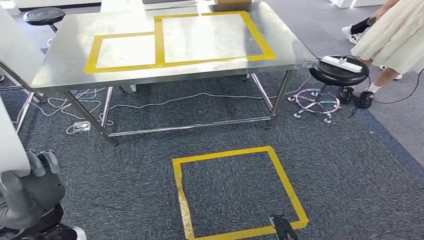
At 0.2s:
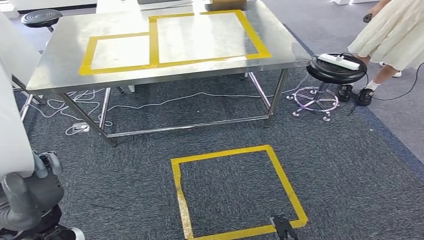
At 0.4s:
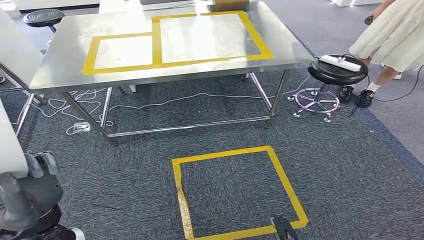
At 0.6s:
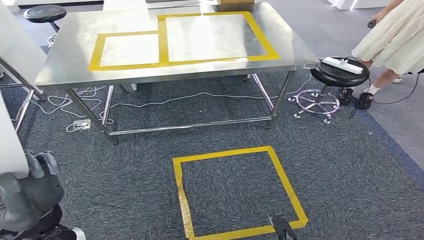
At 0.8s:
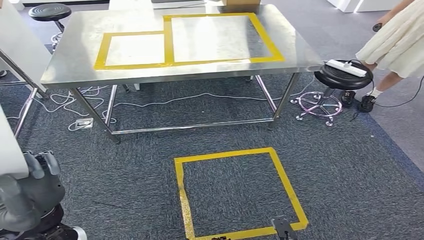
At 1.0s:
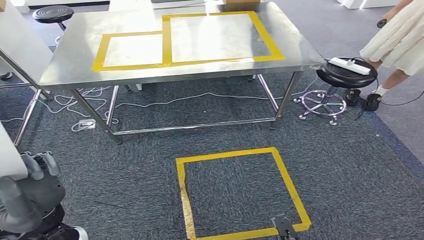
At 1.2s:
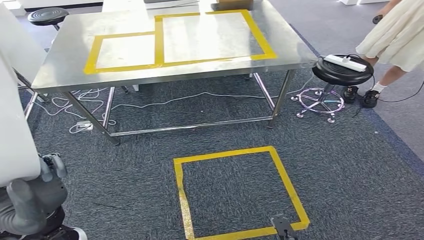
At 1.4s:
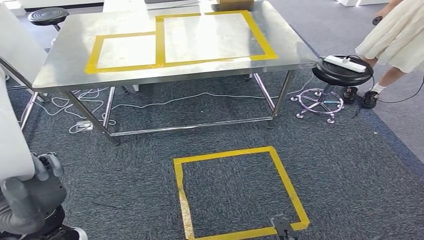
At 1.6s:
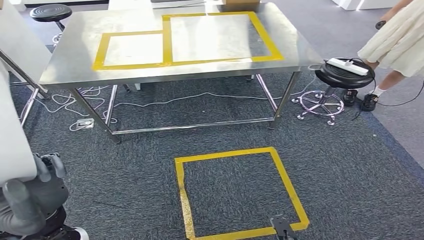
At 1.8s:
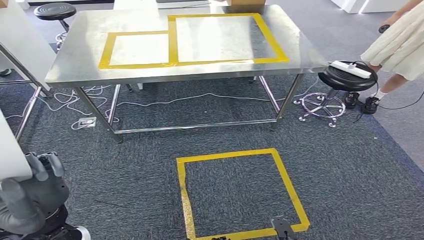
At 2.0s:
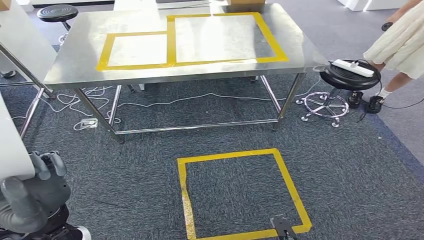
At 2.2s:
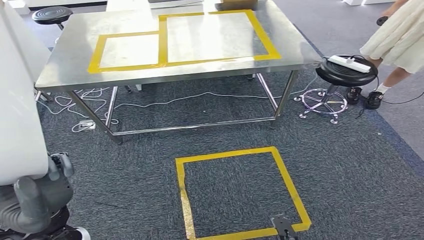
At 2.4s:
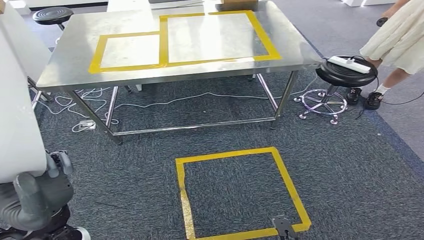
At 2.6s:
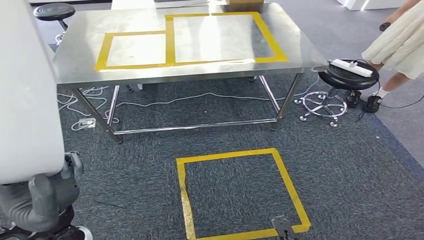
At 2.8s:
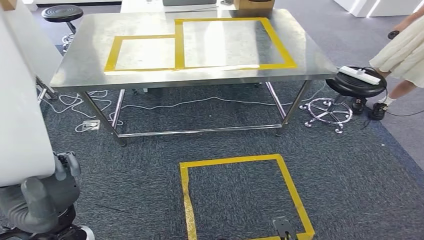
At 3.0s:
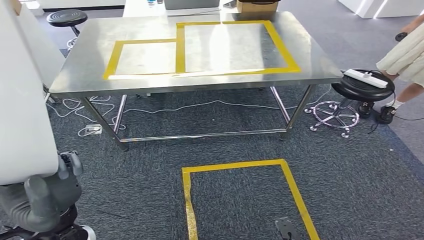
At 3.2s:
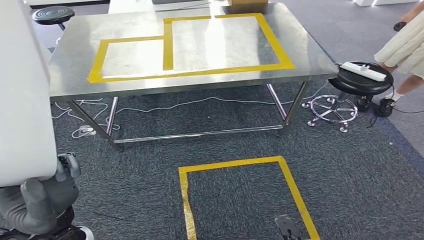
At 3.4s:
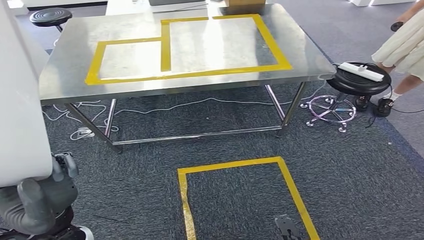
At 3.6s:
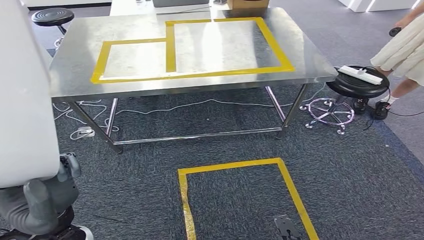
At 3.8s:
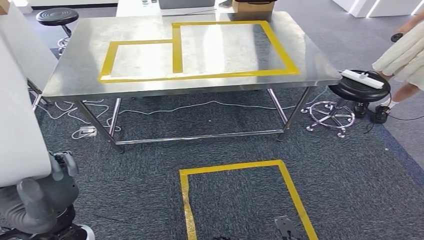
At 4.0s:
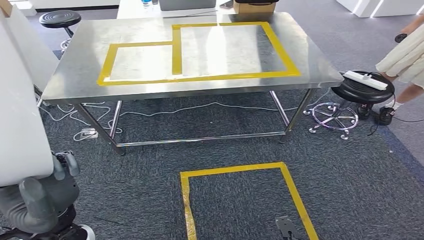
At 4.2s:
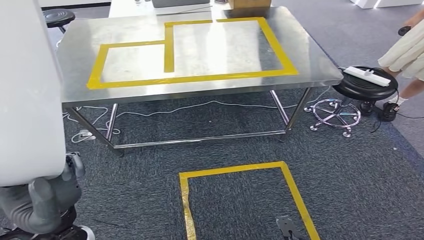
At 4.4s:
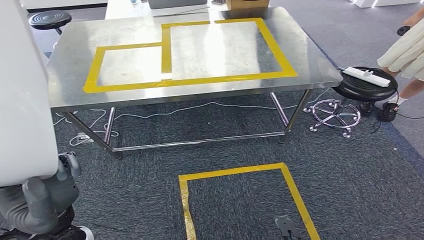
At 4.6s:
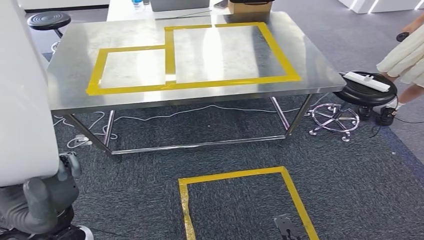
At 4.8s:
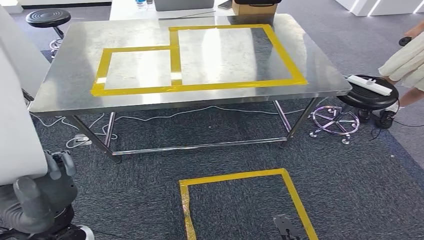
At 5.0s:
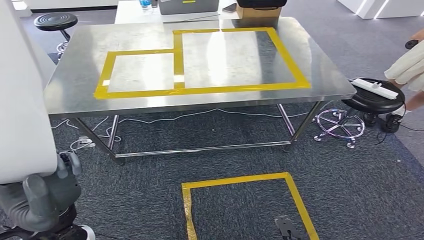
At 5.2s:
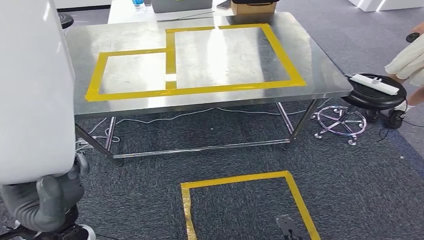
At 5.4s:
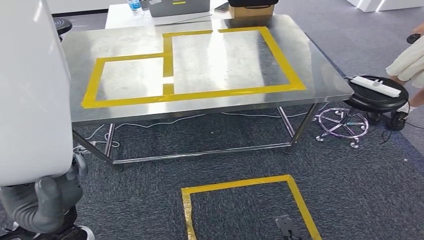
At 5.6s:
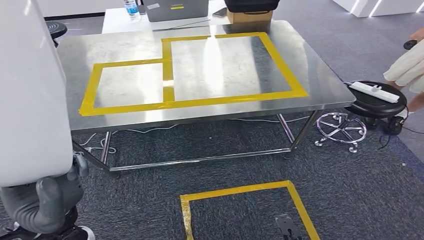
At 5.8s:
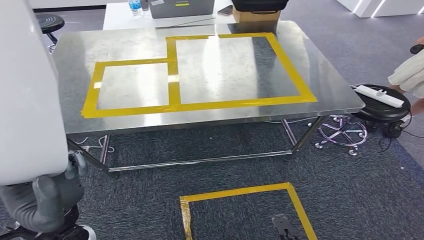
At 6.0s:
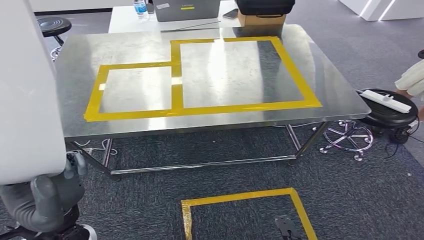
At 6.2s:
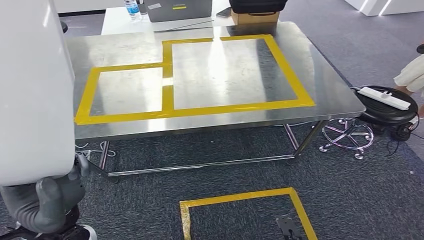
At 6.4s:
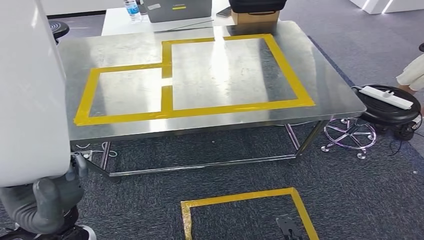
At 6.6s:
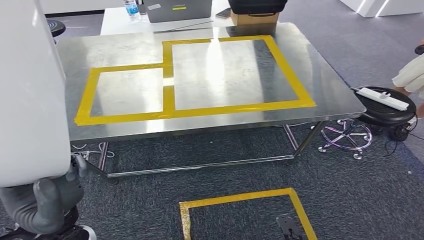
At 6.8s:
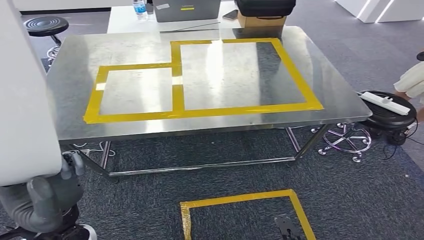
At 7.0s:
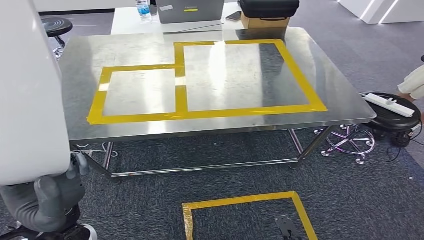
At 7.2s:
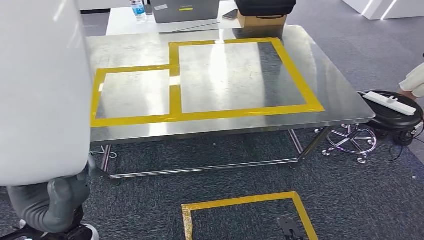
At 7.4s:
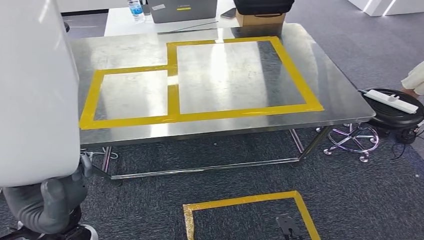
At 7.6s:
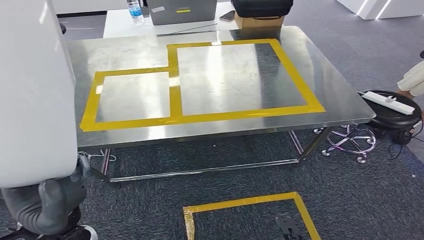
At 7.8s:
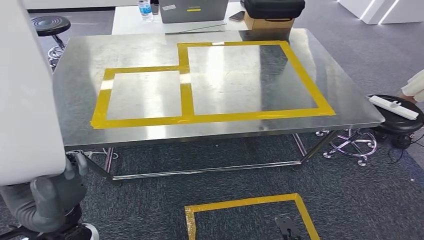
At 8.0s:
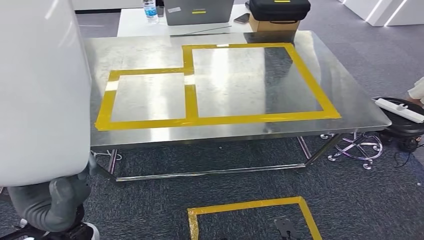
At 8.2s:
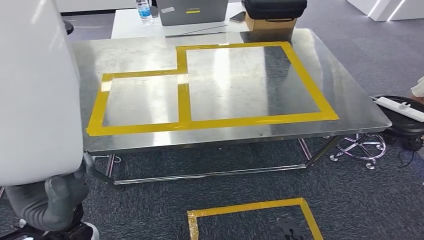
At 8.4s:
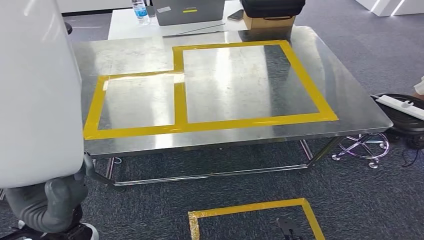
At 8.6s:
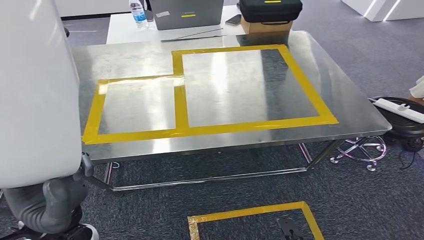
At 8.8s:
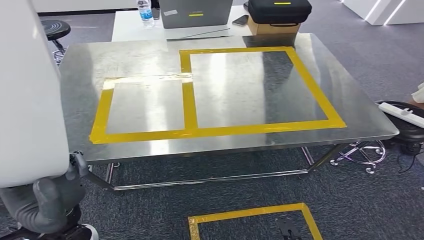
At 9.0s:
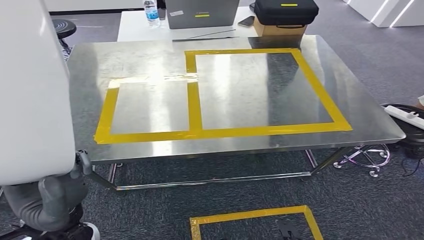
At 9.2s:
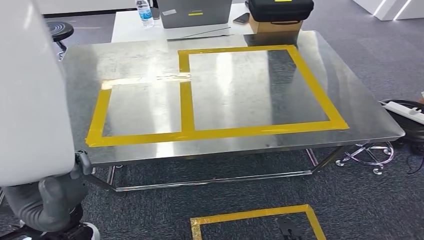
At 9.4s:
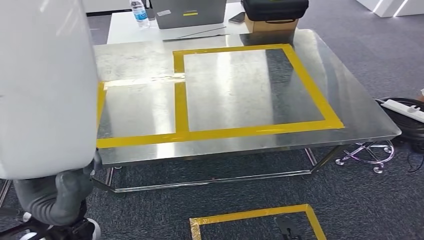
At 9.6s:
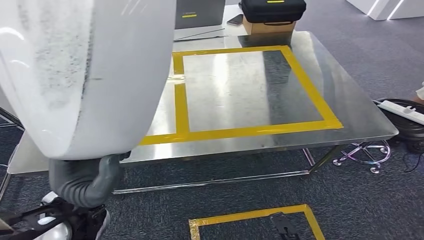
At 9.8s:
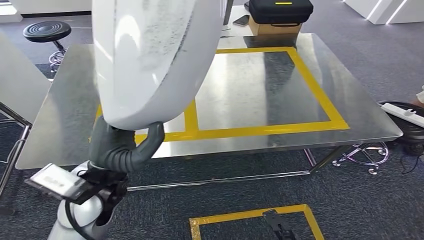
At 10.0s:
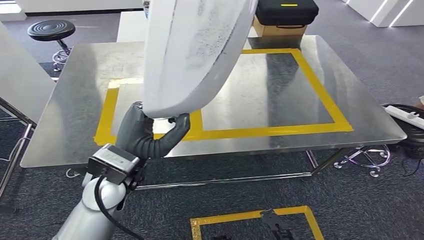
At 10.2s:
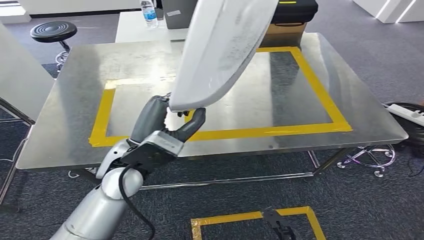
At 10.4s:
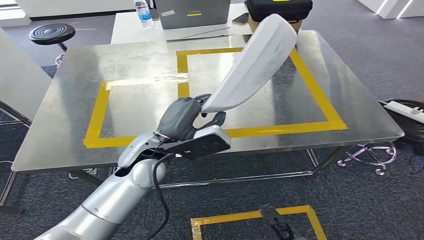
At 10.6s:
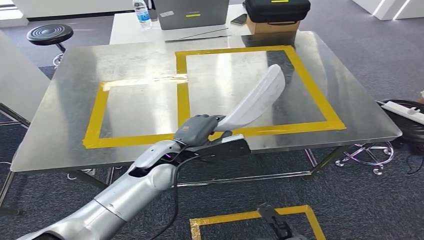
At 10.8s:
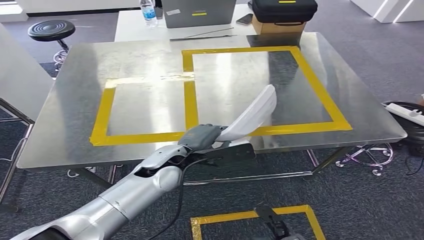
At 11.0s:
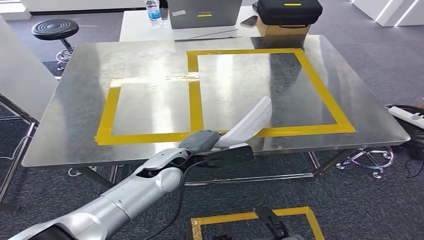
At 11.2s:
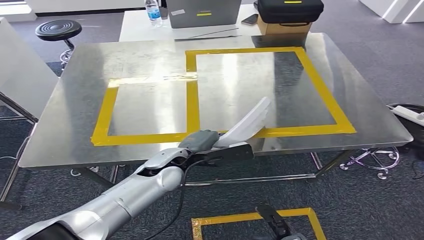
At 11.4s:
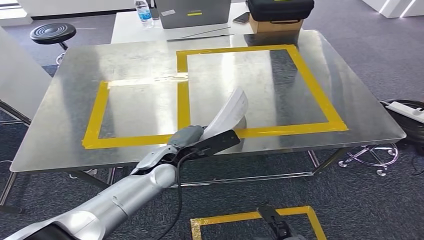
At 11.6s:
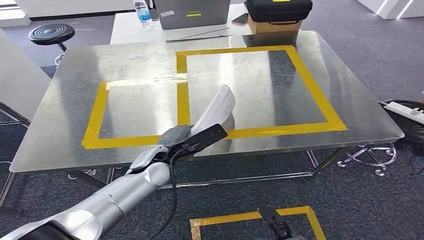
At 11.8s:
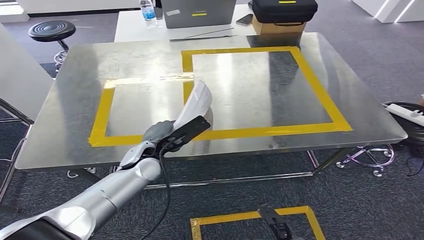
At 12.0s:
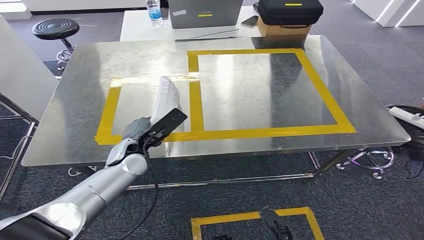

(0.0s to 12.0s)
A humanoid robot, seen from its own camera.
Step, 0.0s - 7.8s: Move the small component to the workbench.
0.0s - 1.6s: The hands move only a little.

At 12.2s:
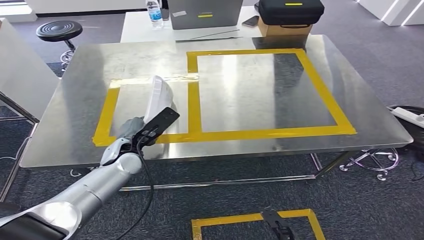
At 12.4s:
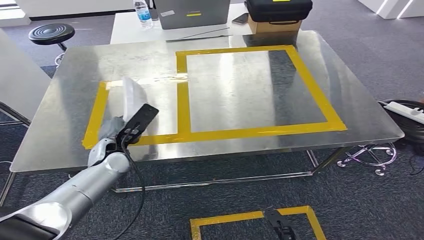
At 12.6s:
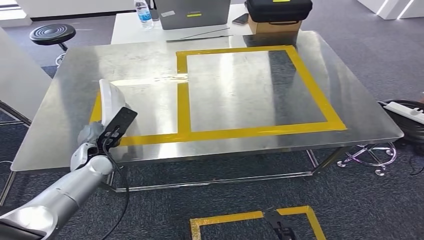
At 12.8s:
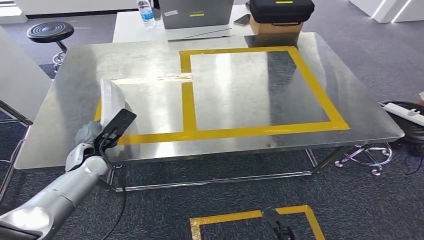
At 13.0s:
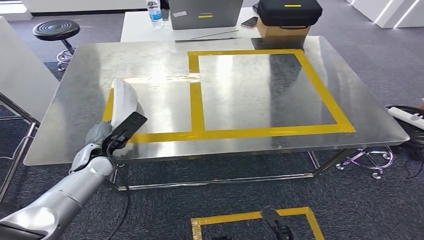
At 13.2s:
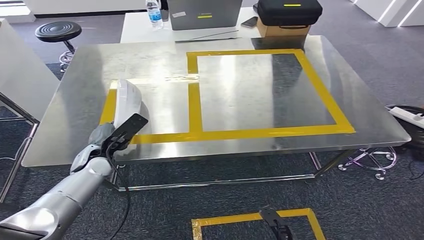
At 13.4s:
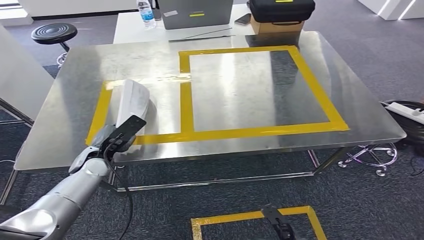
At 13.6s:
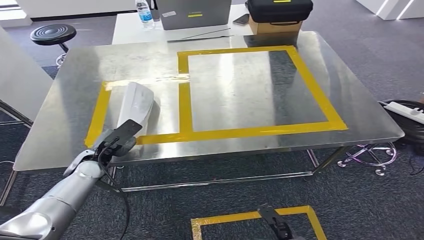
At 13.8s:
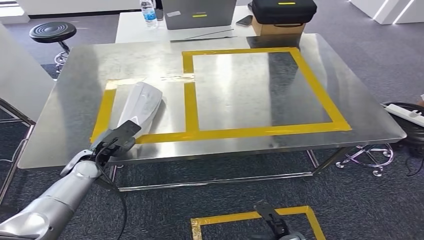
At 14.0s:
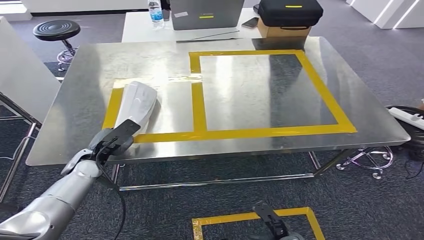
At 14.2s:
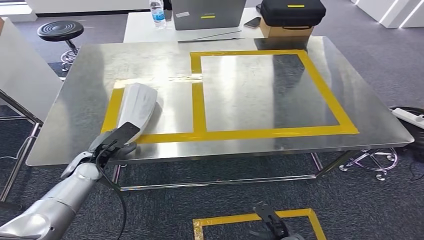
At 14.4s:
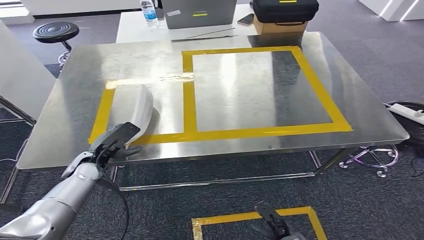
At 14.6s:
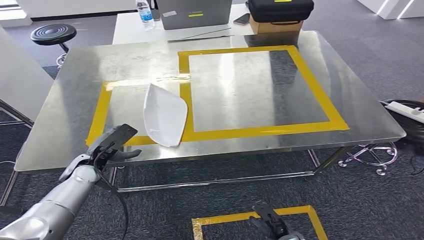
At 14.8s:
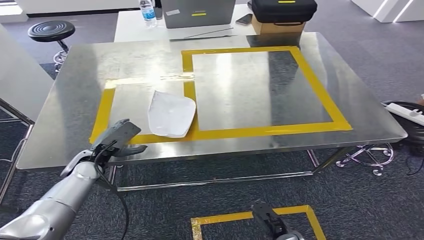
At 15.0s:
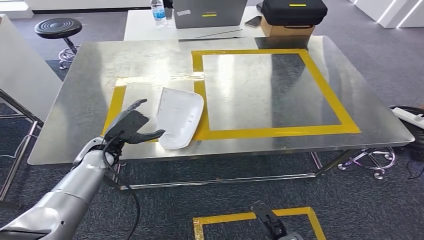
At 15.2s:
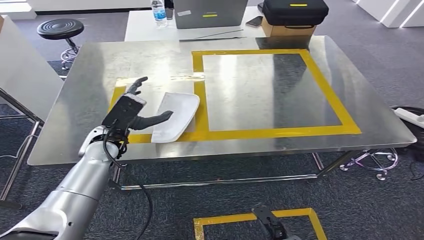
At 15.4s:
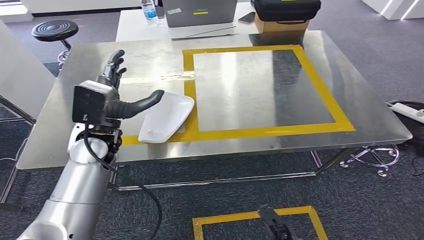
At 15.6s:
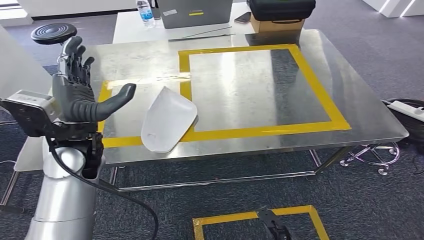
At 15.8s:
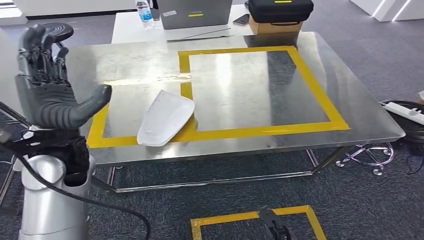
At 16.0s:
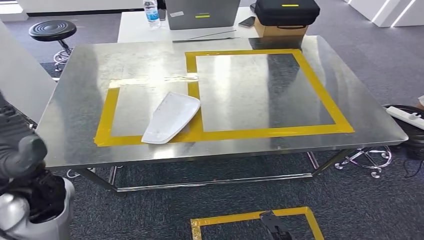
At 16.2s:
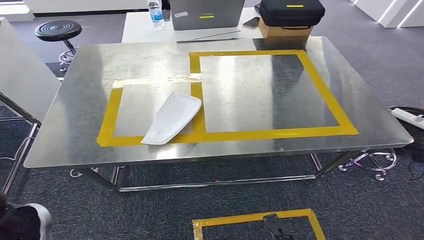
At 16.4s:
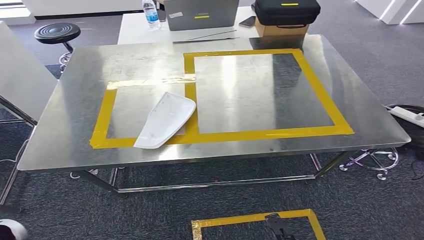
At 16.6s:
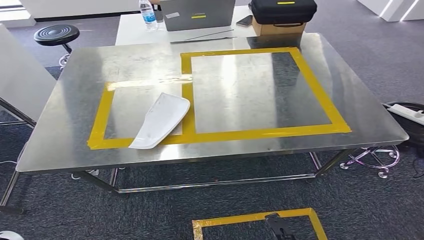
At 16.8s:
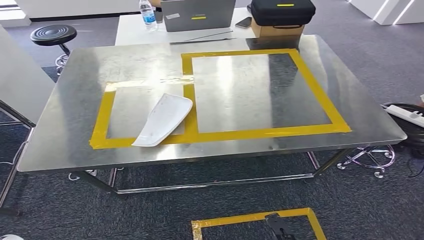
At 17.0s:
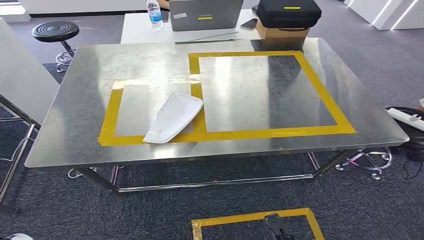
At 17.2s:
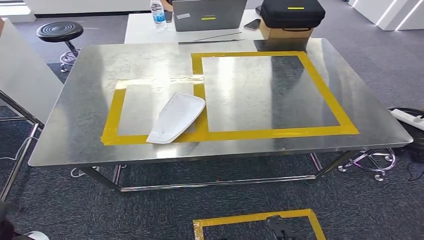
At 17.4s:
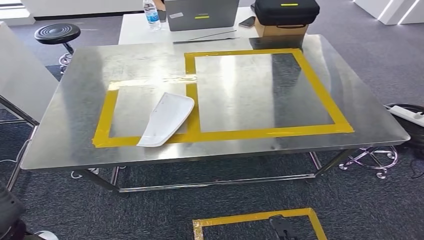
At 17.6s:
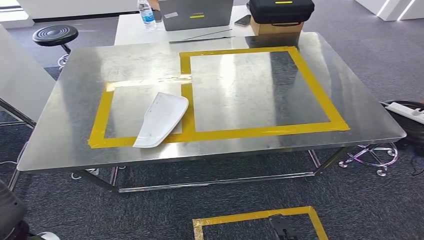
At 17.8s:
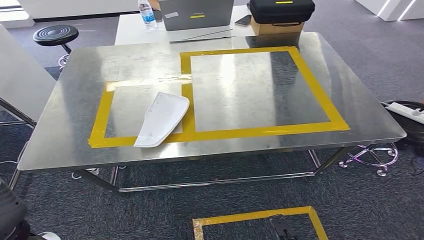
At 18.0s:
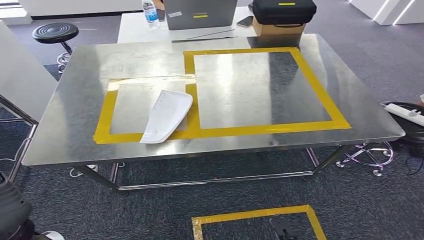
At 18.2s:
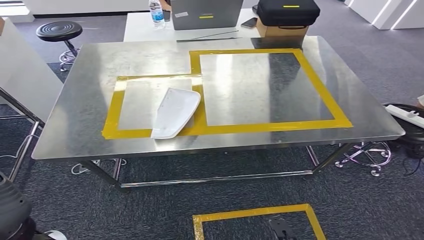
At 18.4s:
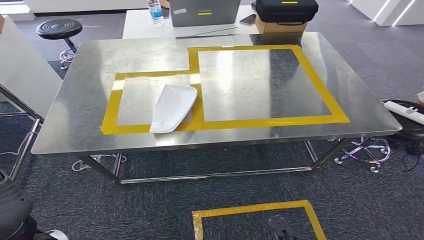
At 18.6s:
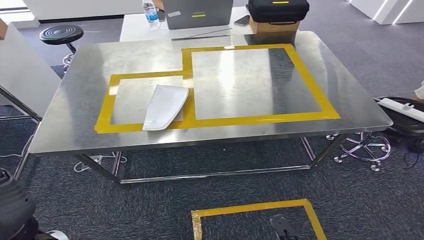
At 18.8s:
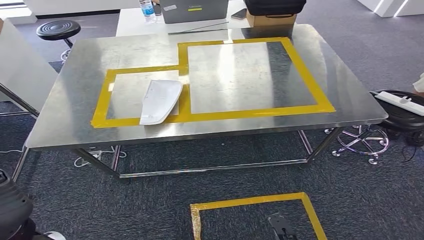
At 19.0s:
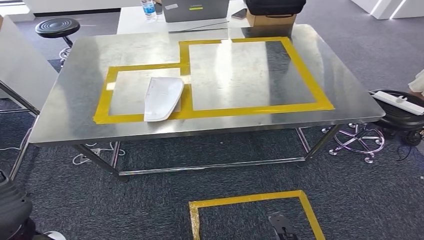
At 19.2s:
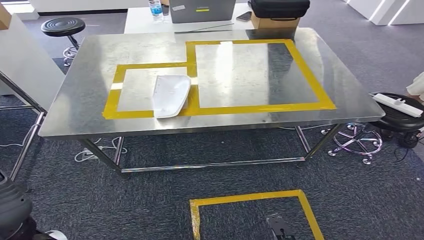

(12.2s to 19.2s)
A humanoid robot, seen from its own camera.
Step, 12.2s - 17.0s: Insert the small component into the corresponding slot on the workbench.
16.4s - 17.8s: The left hand shifts by some 5 cm.
